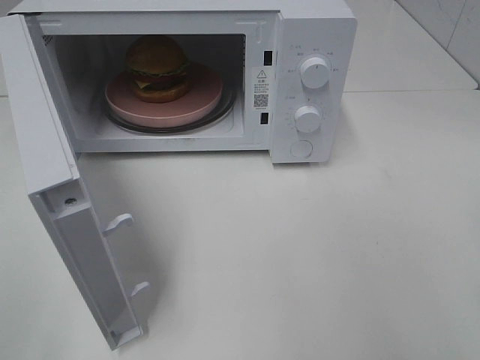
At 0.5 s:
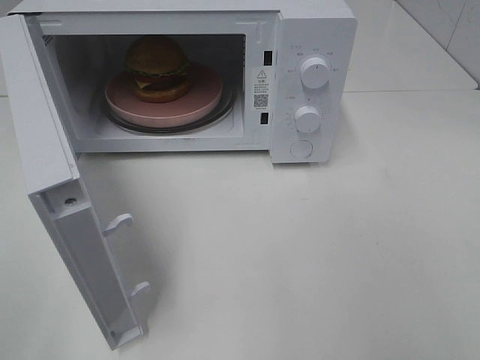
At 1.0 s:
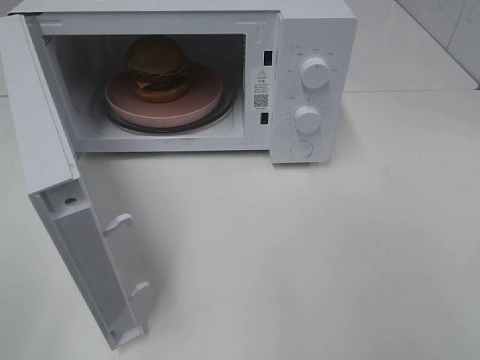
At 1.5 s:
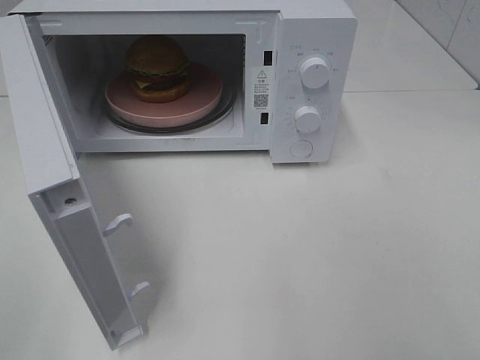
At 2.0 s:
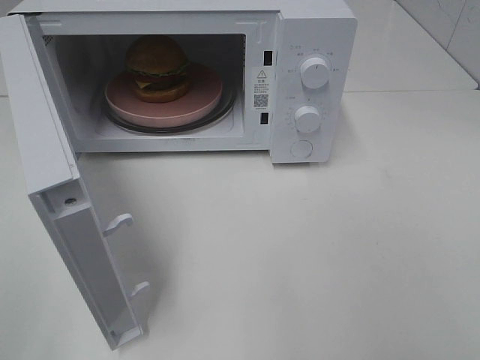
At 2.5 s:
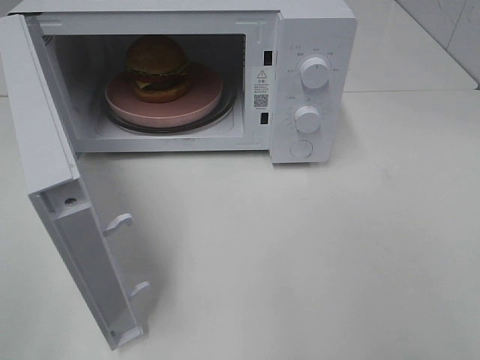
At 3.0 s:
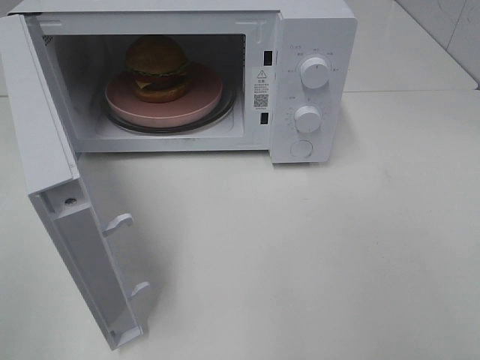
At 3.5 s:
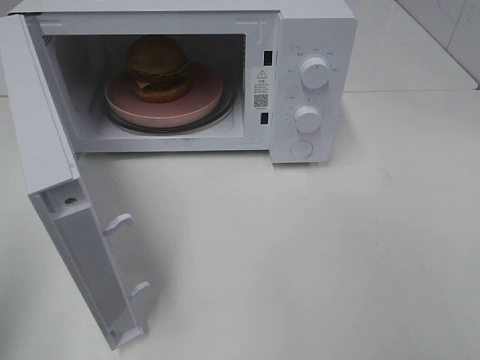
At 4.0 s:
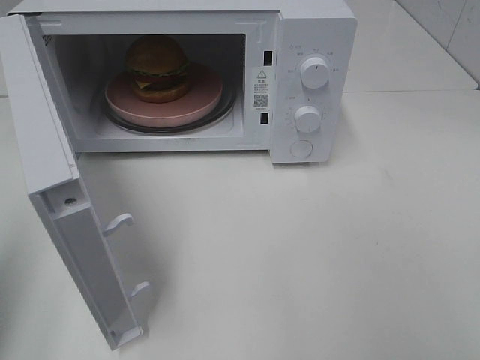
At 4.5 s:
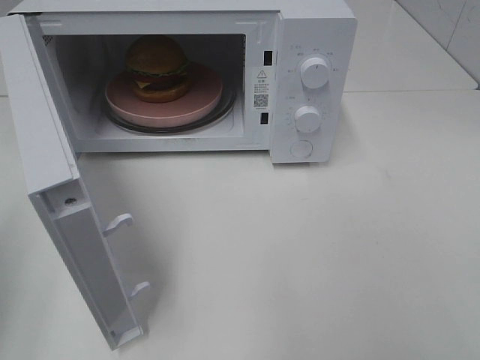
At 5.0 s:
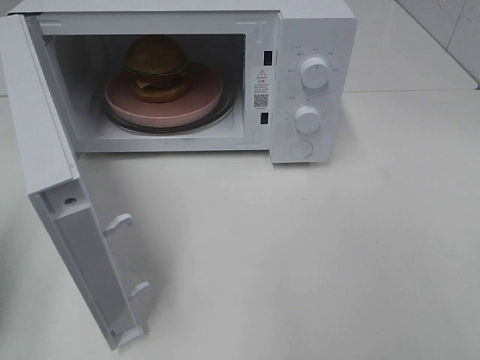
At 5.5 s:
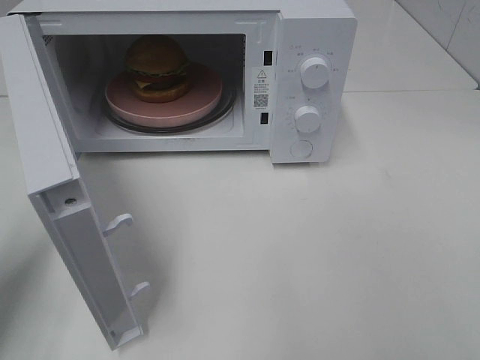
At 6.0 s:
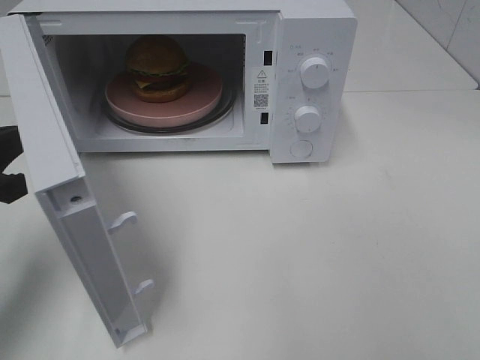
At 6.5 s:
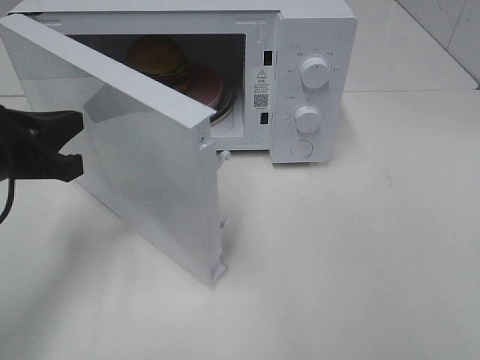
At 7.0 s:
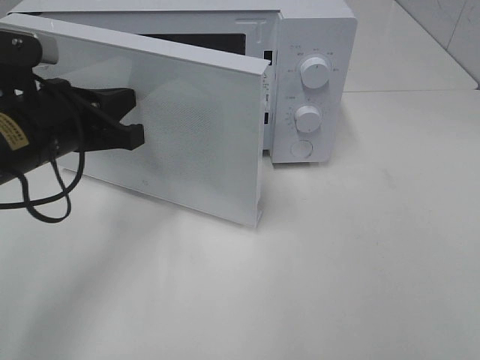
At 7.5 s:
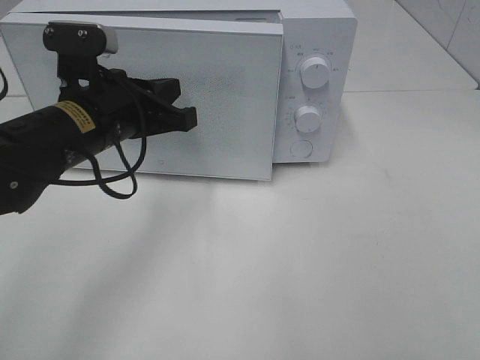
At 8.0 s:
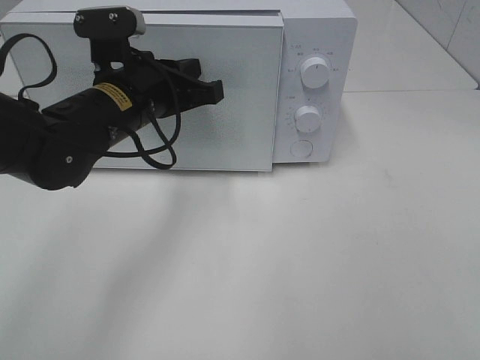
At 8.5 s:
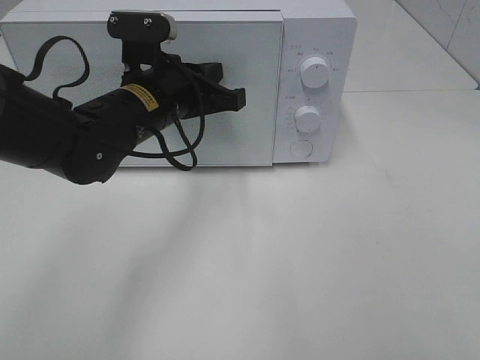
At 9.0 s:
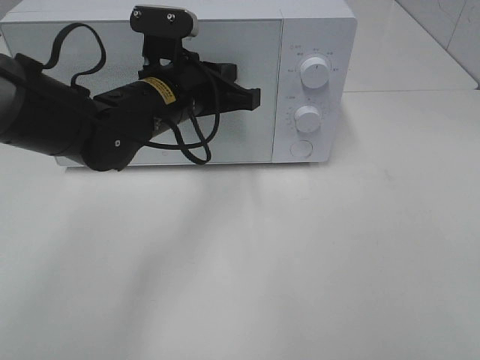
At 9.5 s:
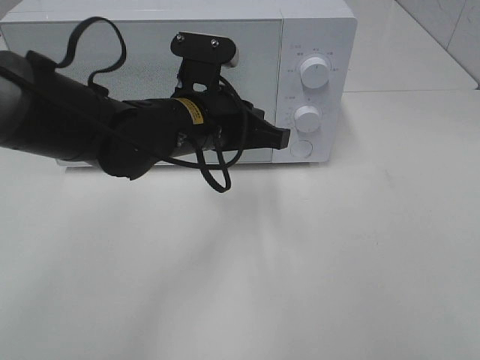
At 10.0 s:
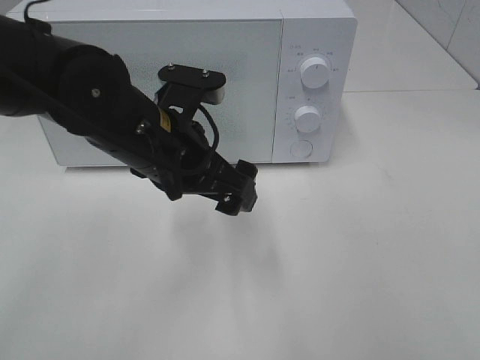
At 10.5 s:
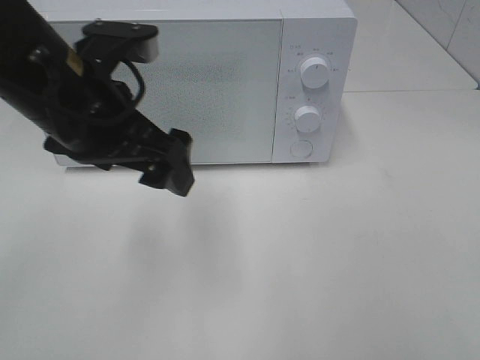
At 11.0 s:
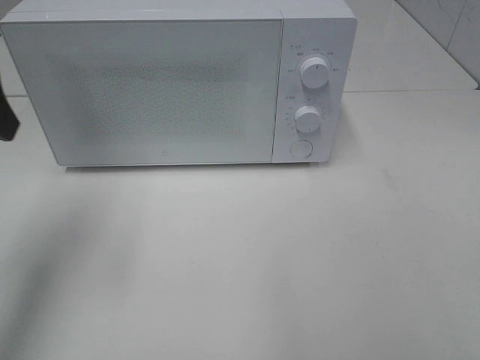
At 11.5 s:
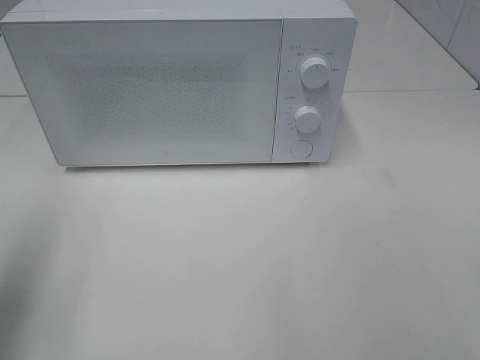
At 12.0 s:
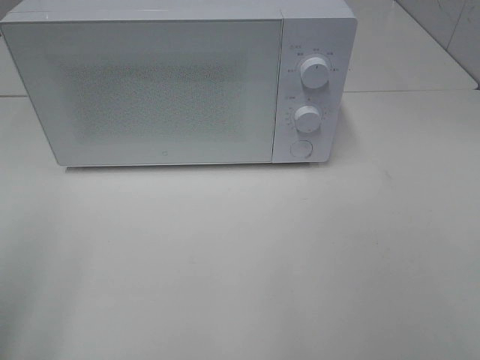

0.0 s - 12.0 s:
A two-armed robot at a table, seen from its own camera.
Task of the whole recording: Heat the burger.
Step, 0.0 s - 9.5 s: Left hand: close the microwave door.
2.0 s - 4.0 s: The left gripper heads forward, covering approximately 10 cm, and closes.
4.0 s - 6.0 s: The left gripper is displaced downward, forward and to the right by roughly 15 cm.
6.0 s - 8.0 s: The left gripper is displaced to the right and forward by some 20 cm.
8.0 s - 10.0 s: The left gripper moves backward, roughly 5 cm, and opens up.
10.0 s - 12.0 s: The left gripper goes about 30 cm to the left and backward.

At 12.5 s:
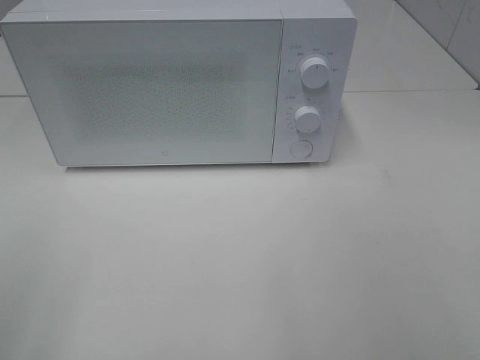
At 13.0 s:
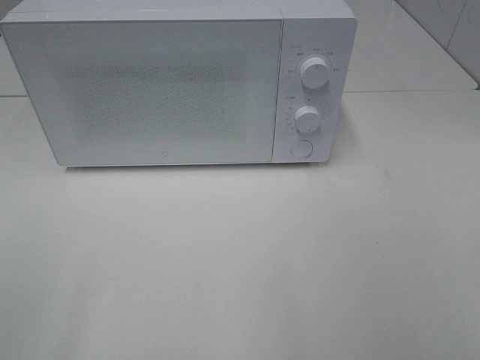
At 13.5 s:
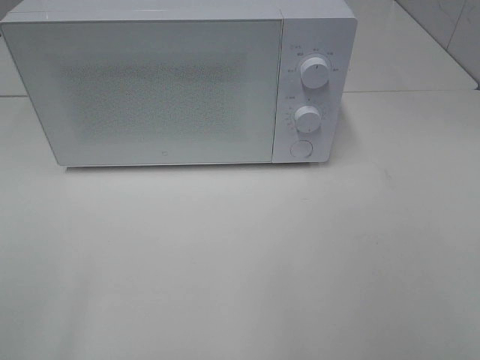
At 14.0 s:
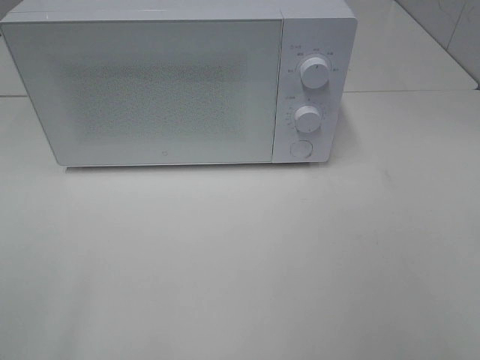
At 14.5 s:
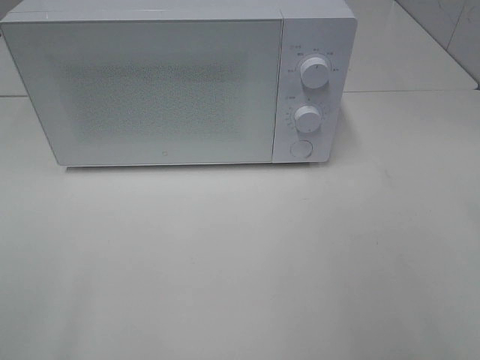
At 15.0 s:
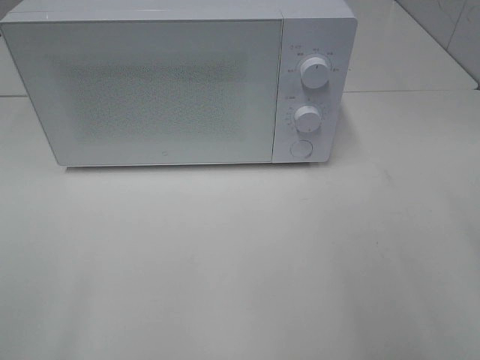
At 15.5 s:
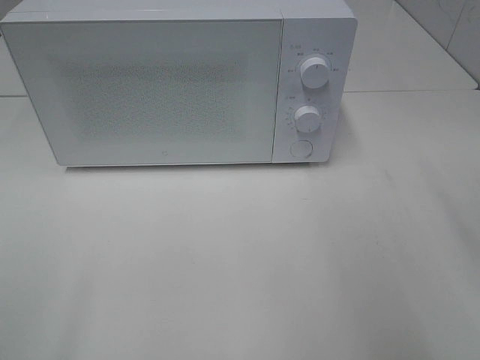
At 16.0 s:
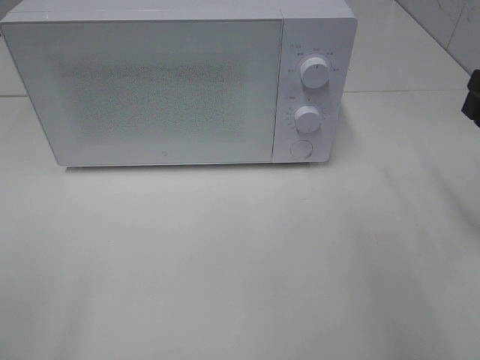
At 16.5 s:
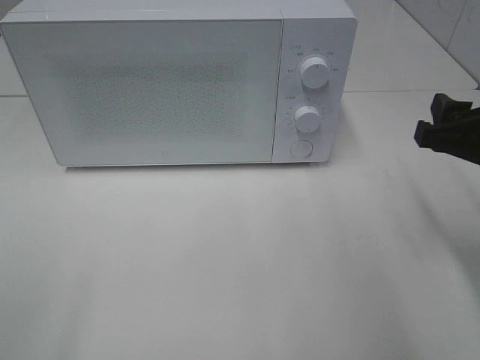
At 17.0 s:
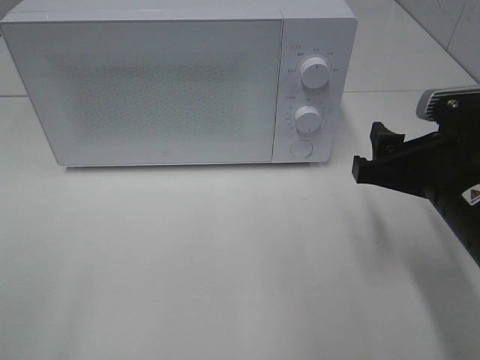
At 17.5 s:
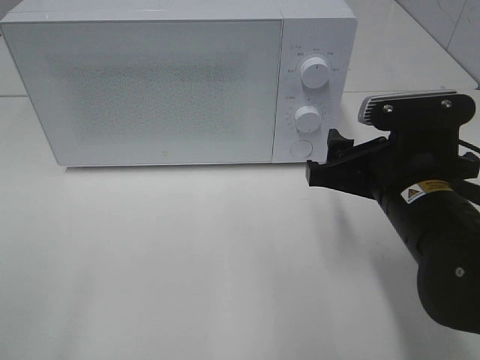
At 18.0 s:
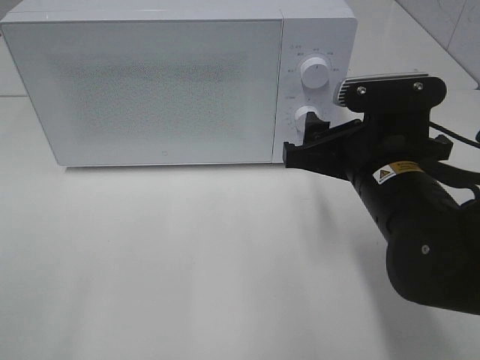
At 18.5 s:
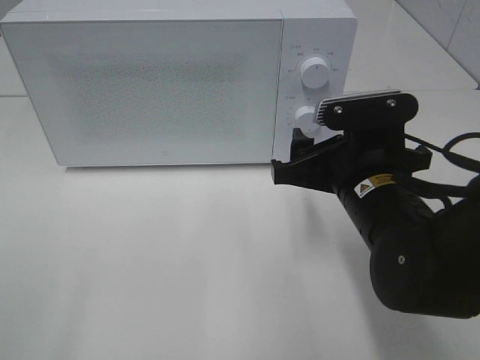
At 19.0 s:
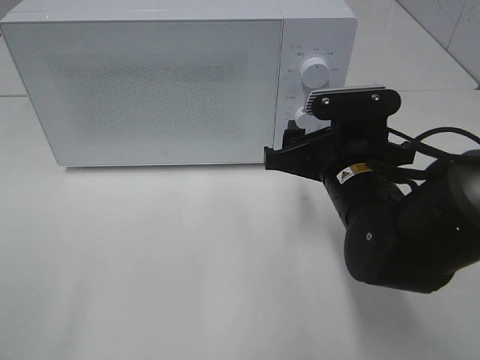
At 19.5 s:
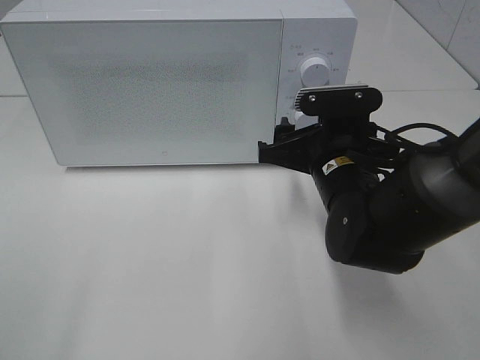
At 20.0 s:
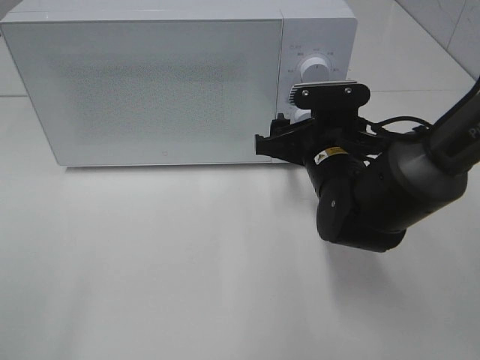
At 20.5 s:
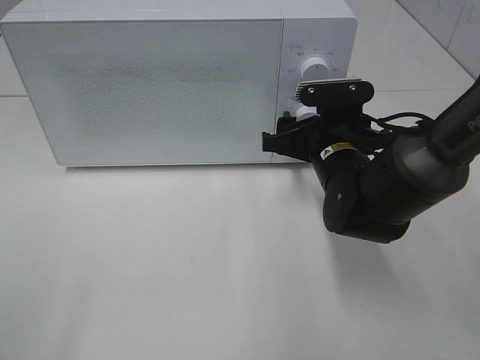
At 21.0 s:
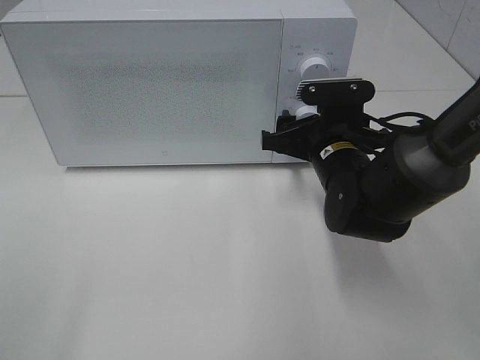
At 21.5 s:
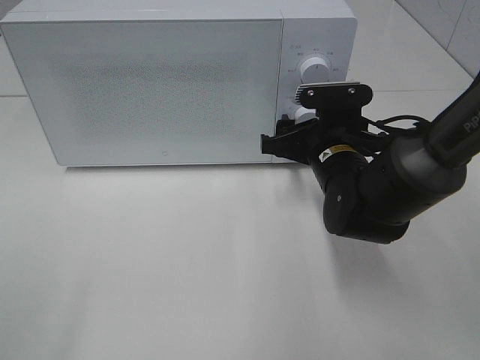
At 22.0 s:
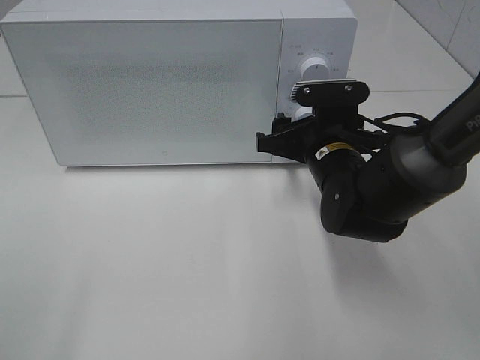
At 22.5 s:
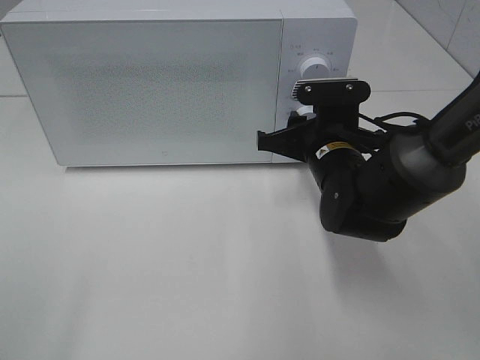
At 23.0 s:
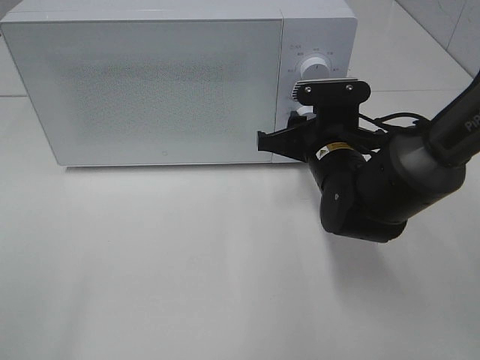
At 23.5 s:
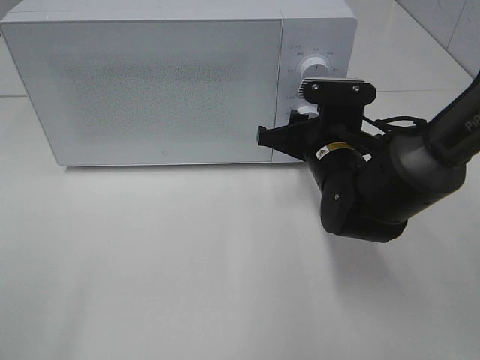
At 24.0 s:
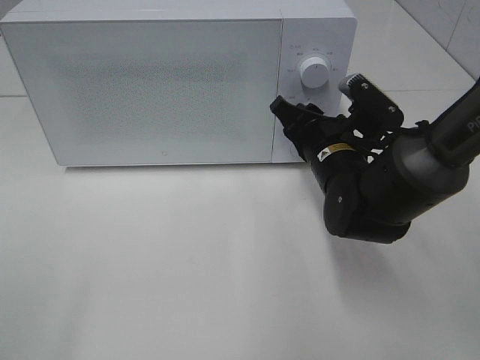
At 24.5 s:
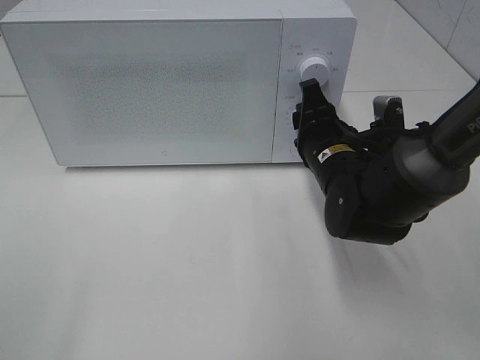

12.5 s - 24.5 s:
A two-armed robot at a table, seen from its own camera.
Task of the whole recording: Heat the burger.
14.5 s - 16.5 s: The right gripper shifts roughly 20 cm forward and downward.
16.5 s - 18.5 s: The right gripper goes some 15 cm to the left.
18.5 s - 20.5 s: The right gripper moves forward, about 10 cm.
20.5 s - 22.5 s: The right gripper closes its fingers.

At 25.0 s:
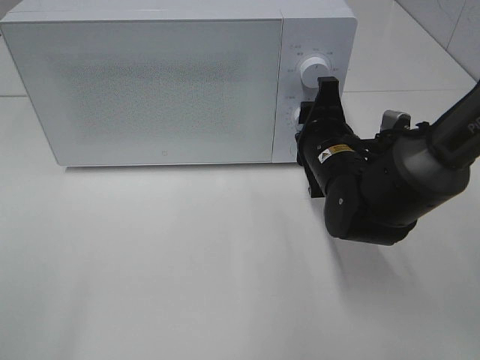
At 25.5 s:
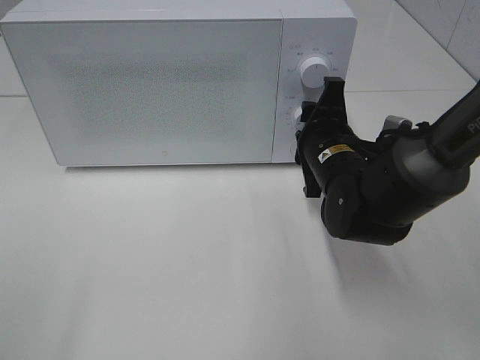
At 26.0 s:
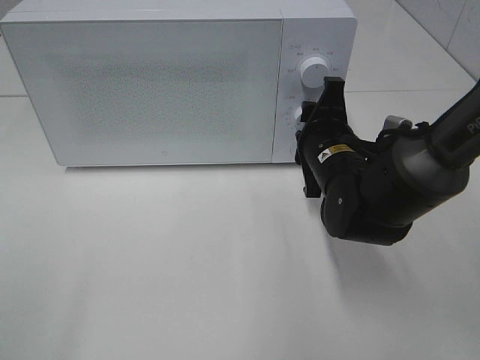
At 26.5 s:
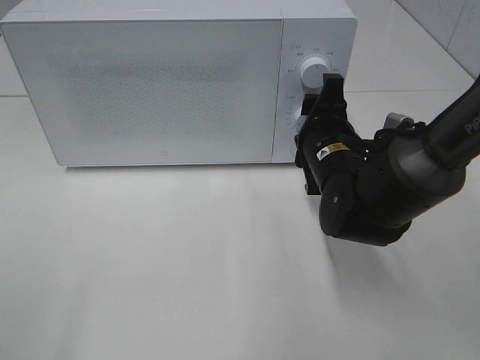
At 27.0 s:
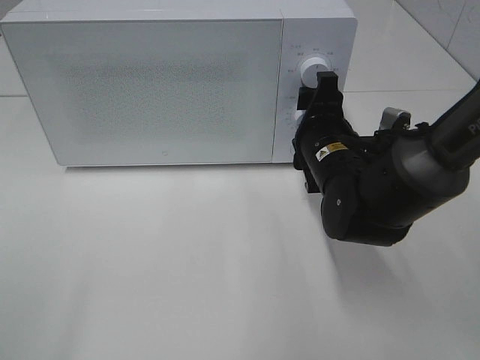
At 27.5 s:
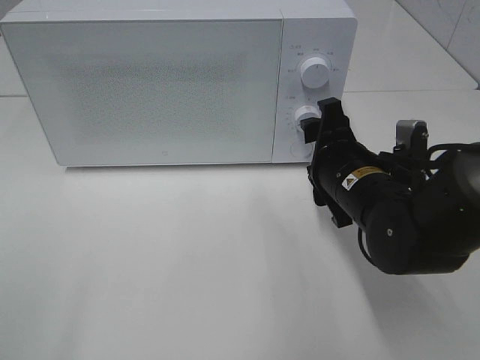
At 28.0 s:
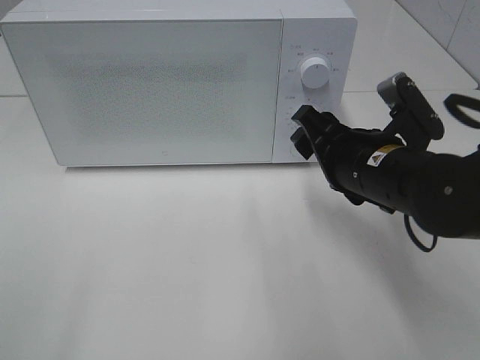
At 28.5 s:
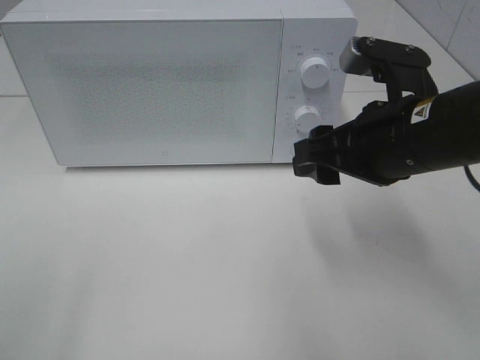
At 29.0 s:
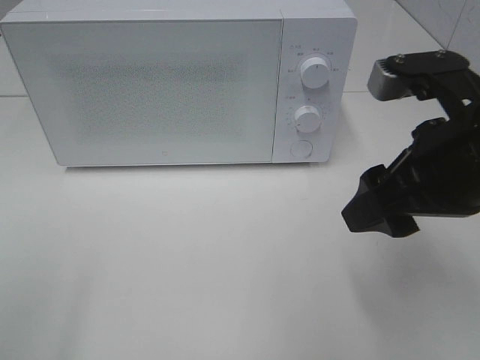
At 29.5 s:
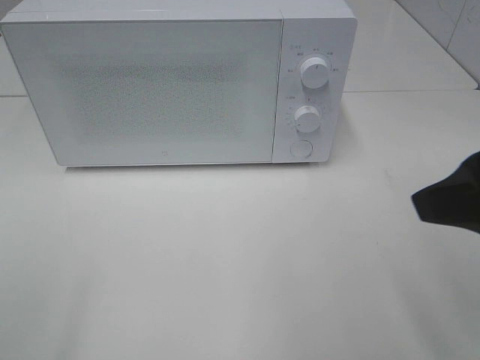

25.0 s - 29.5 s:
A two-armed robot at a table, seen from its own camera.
Task of the whole recording: Heat the burger.
Step, 25.0 s - 27.0 s: Right hand: twist timer button.
25.0 s - 27.0 s: Neither gripper changes place.
27.0 s - 29.5 s: The right gripper moves backward, upward and to the right, roughly 25 cm.
